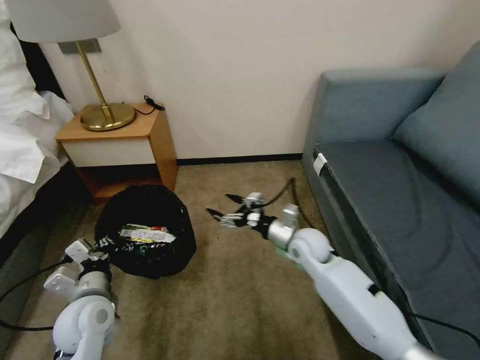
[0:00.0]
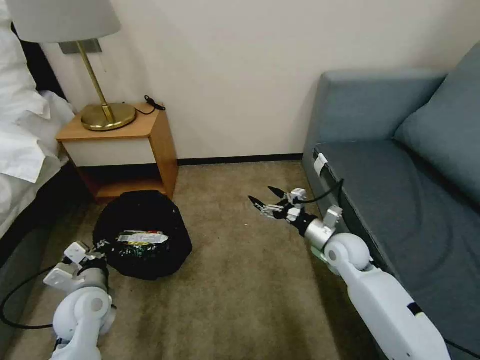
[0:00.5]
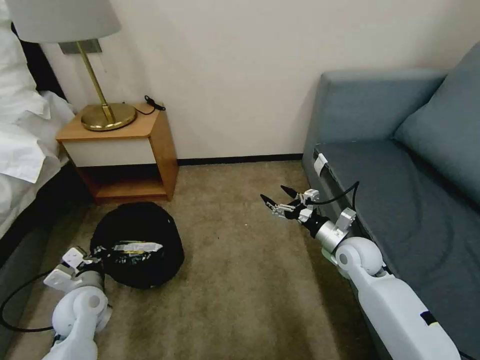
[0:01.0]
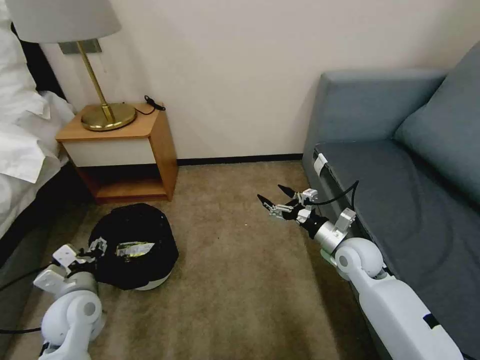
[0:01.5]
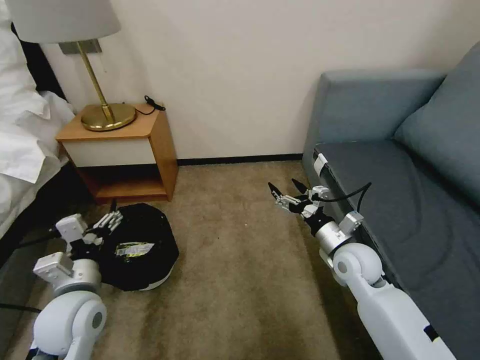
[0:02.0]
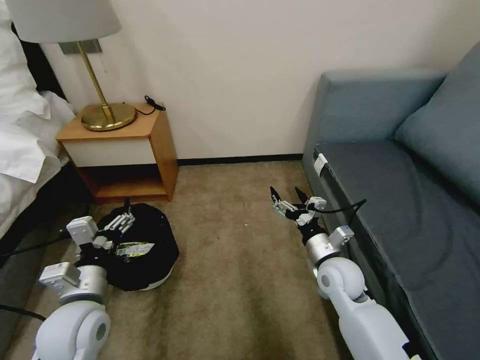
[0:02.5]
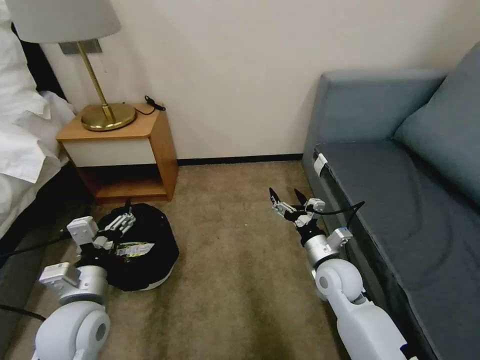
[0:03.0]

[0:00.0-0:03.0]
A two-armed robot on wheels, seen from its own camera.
Task of the whole recording: Pick up the trash bin, then pick up the garbage on the floor and place it into the trash bin.
0:00.0 to 0:01.5: The left gripper opens. The right gripper heads to the right, covering some 10 cm.
0:01.5 to 0:03.0: The left gripper moves upward and to the right, about 10 cm, while the right gripper travels to the left by approximately 5 cm.

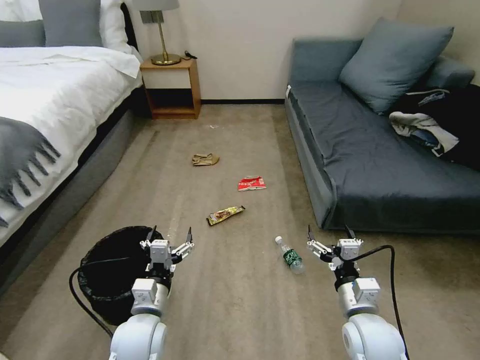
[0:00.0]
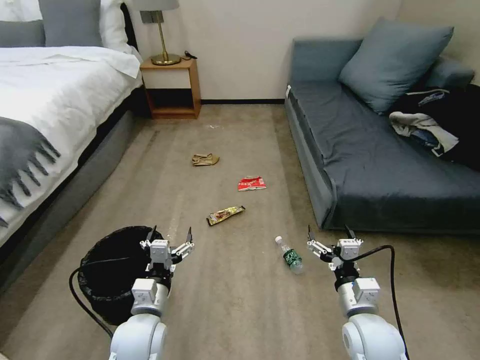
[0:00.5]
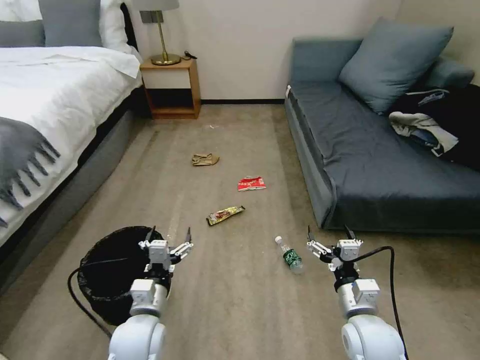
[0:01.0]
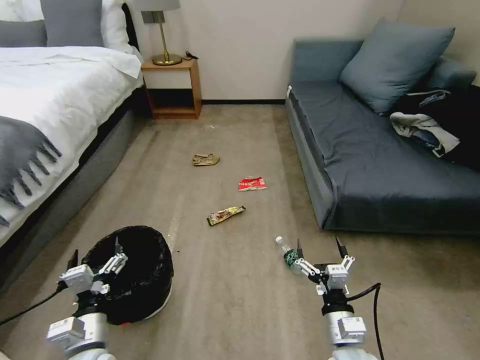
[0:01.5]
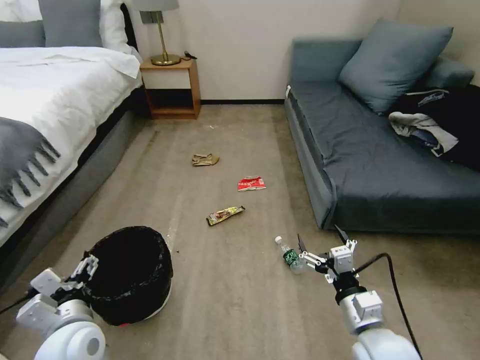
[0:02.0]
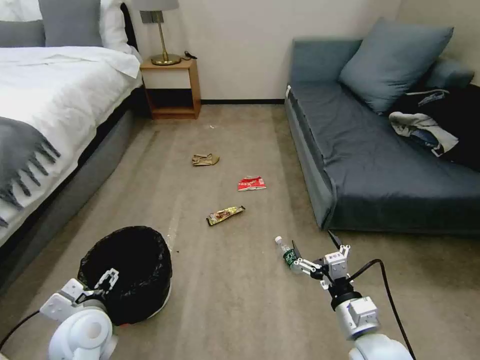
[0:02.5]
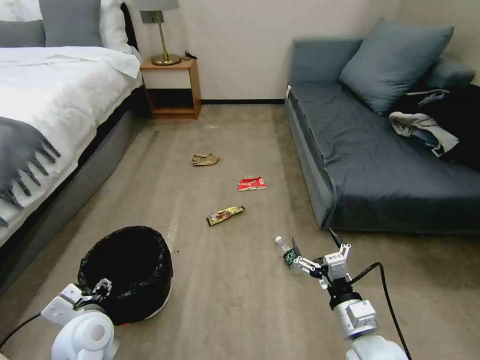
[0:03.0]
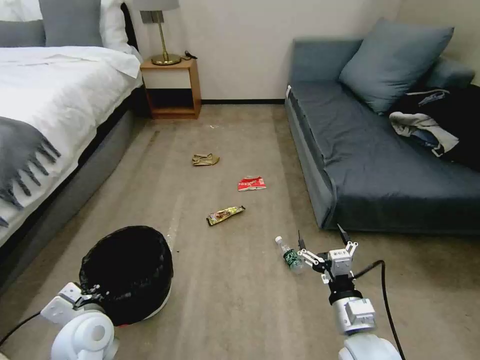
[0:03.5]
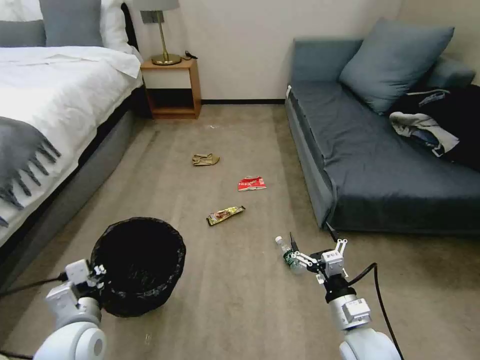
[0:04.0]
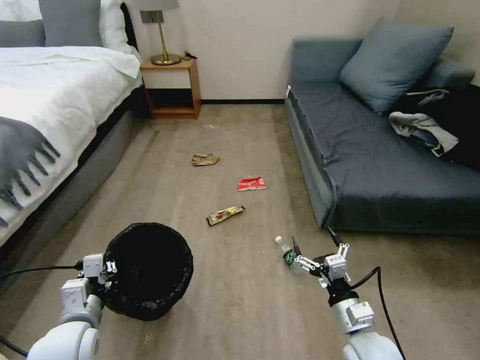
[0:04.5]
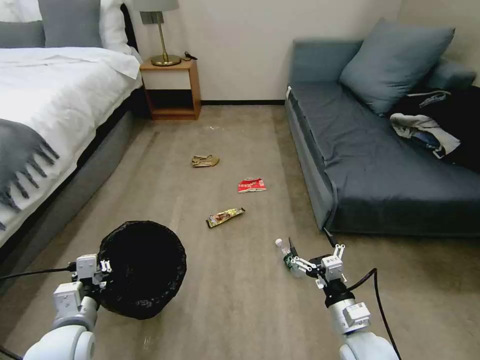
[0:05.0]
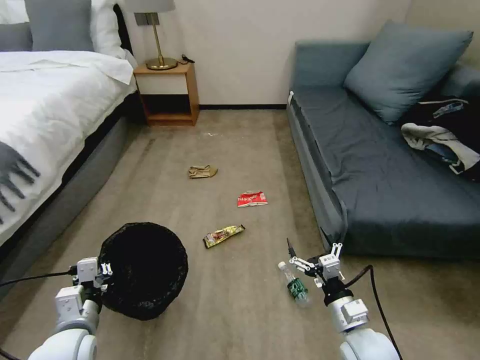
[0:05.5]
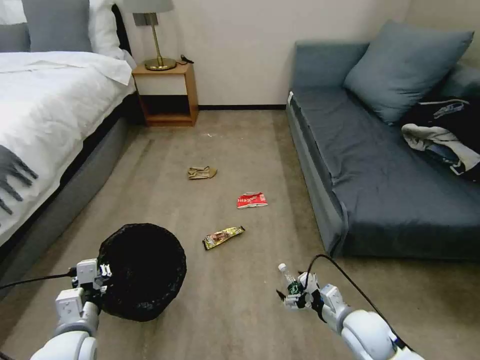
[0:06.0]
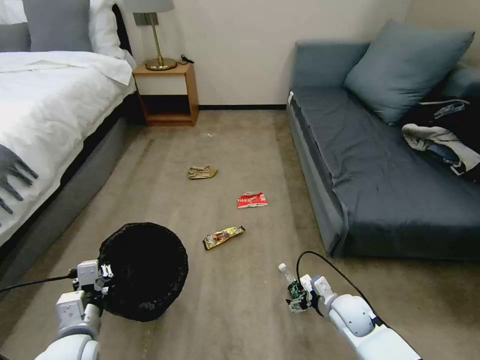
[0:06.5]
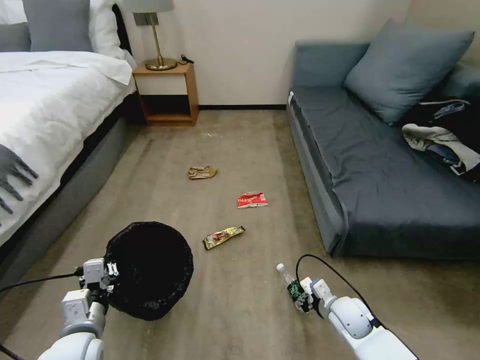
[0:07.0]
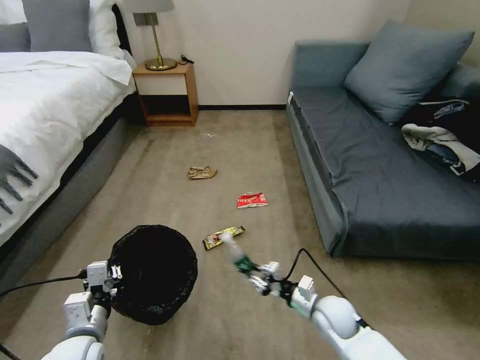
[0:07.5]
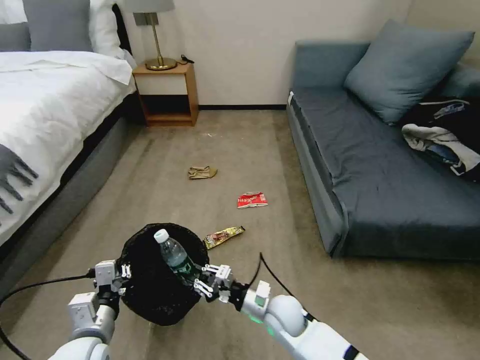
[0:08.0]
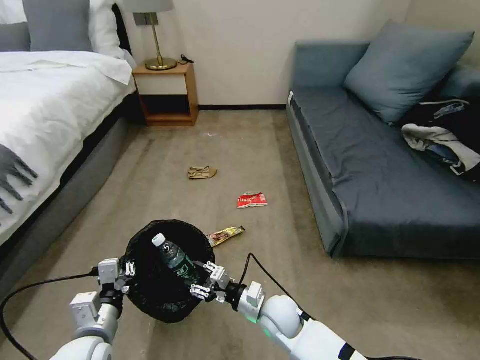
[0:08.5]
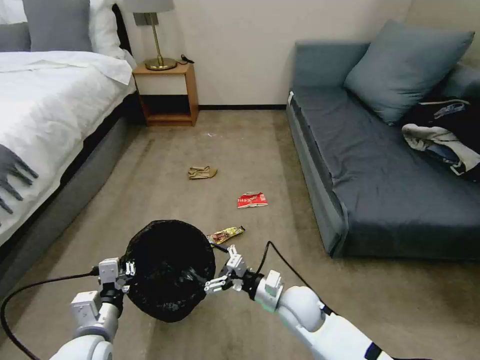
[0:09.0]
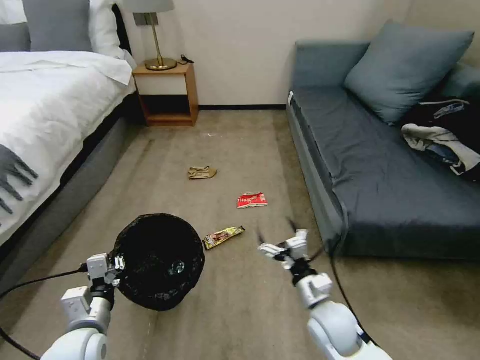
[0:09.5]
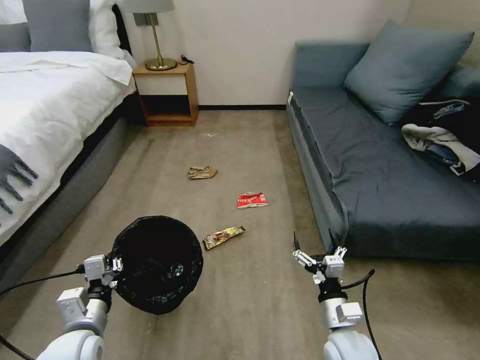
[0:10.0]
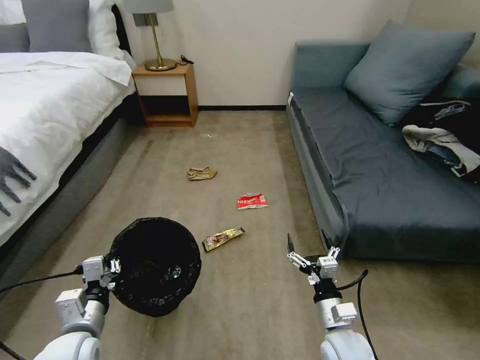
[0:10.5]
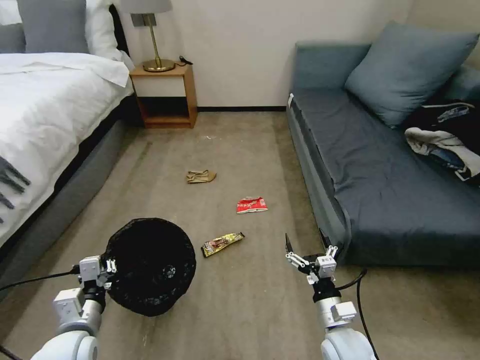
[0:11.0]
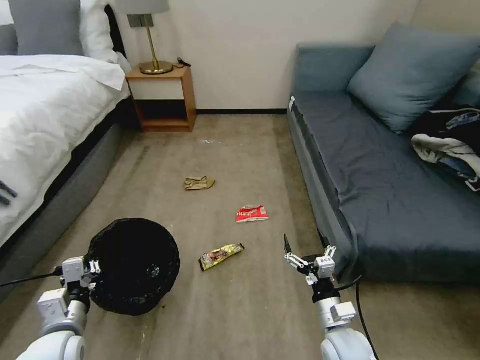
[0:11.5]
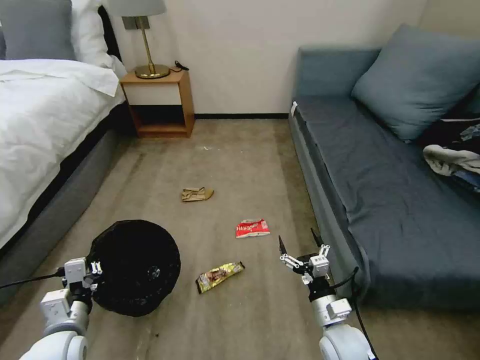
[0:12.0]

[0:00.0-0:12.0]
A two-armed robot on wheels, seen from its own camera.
Task of the whole recording: Pick up the trash bin, then pick up the garbage on the floor and place it into the trash bin.
0:02.0 to 0:04.0: The left gripper closes its fingers.
0:04.0 to 0:06.0: The right gripper heads downward, covering some 5 cm.
0:06.0 to 0:08.0: The right gripper is displaced to the left by roughly 20 cm, and closes.
0:08.0 to 0:10.0: The right gripper goes approximately 15 cm to the right and backward, and opens its fingers.

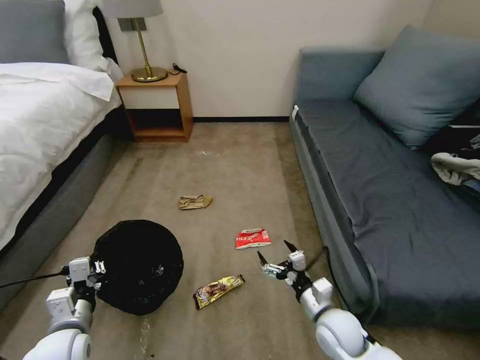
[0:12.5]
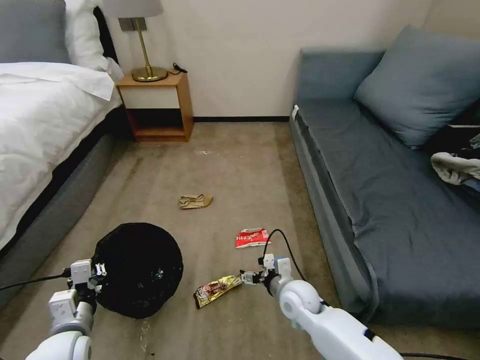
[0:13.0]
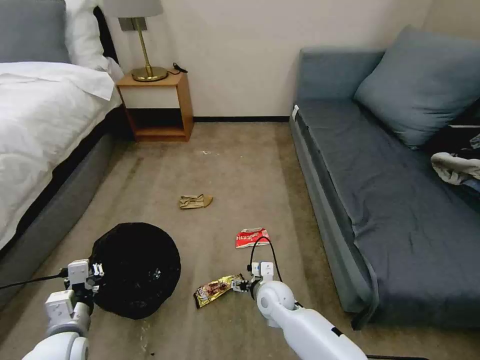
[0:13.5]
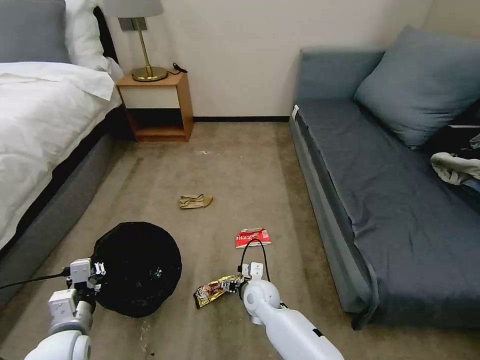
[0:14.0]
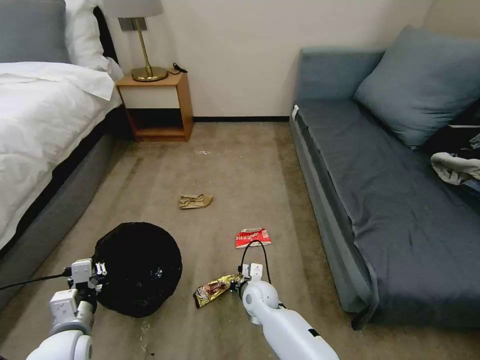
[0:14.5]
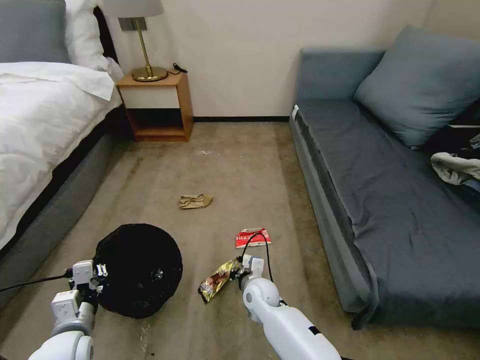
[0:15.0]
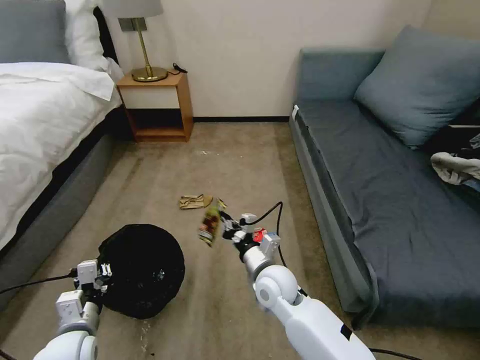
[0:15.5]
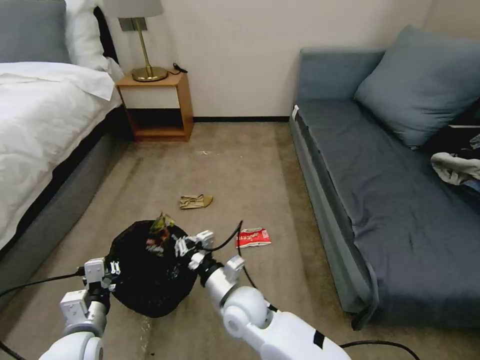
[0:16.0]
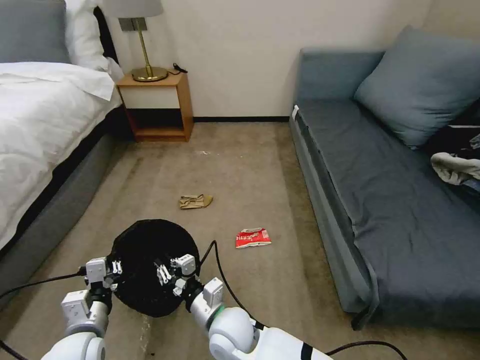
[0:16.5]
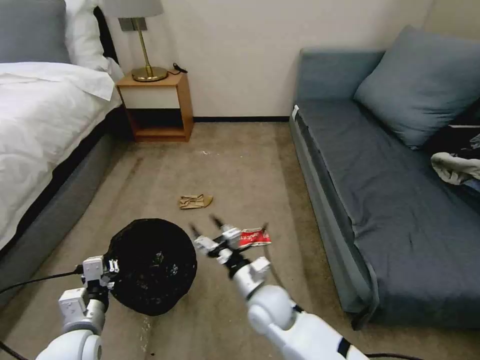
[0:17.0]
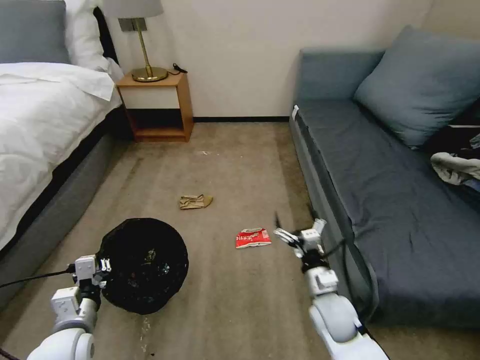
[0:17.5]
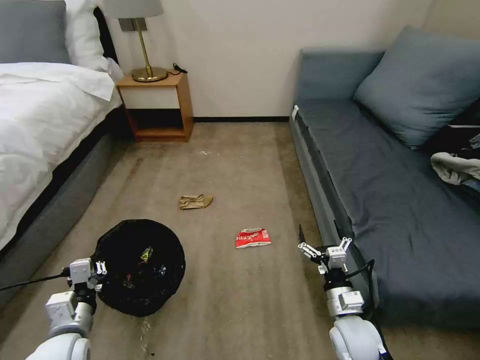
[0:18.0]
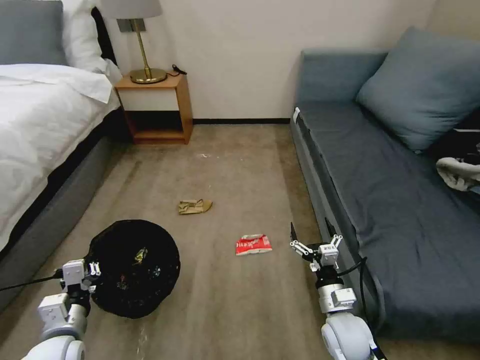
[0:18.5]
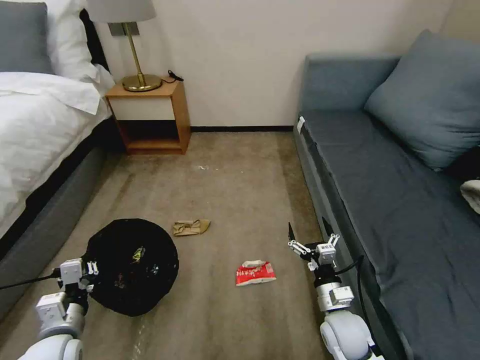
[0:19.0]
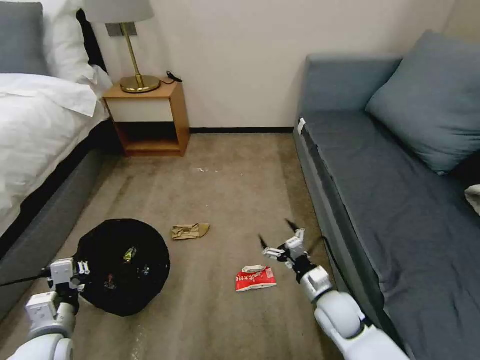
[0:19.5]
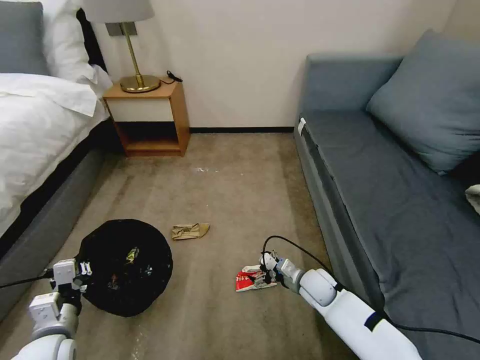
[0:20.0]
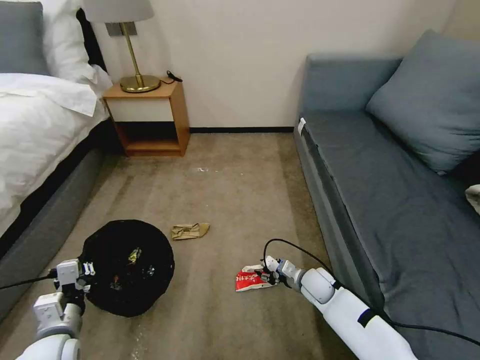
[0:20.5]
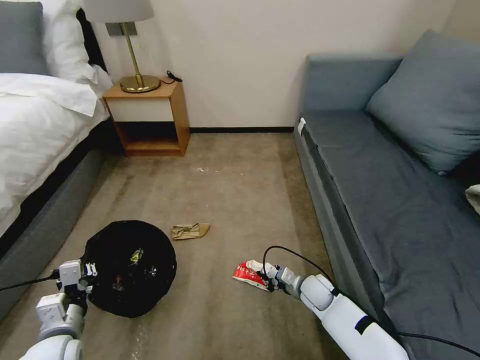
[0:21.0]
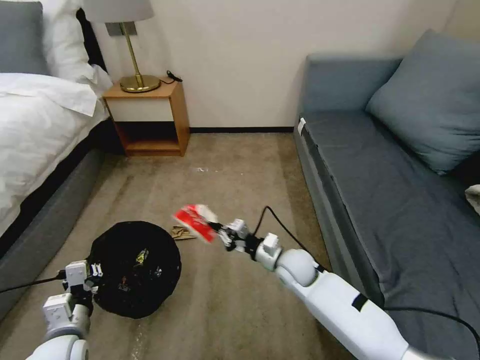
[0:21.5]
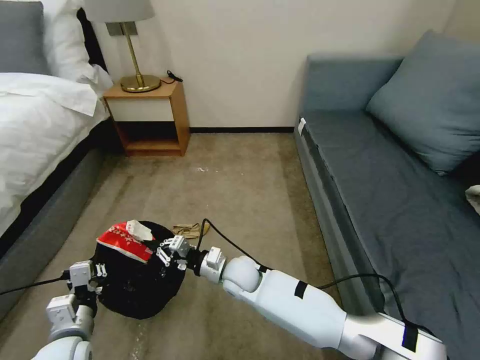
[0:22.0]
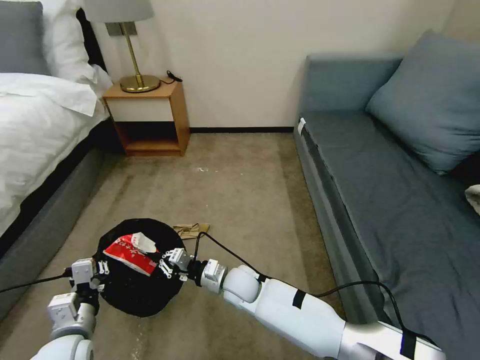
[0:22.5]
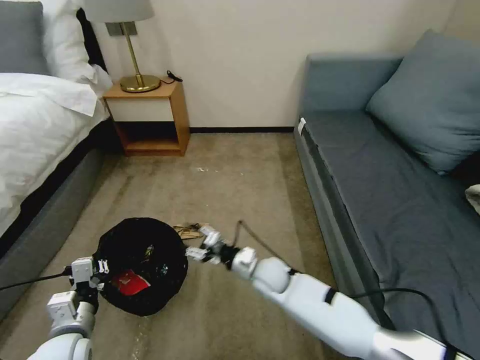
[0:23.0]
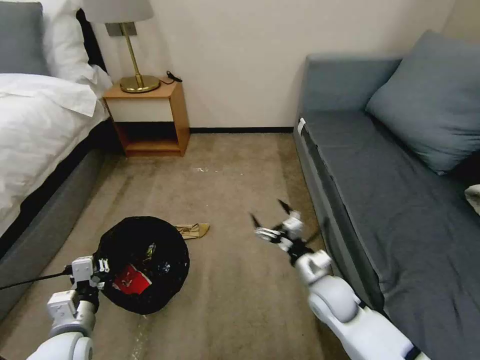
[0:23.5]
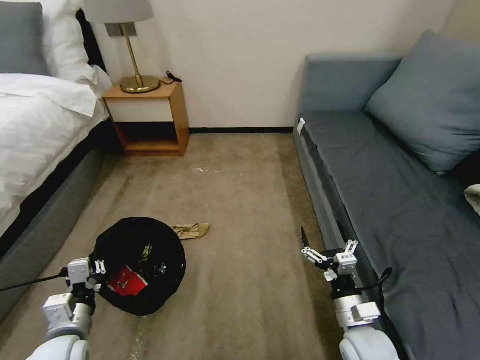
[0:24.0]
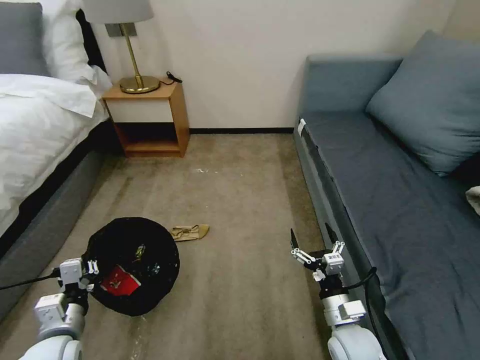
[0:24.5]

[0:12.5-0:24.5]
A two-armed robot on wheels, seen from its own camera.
Task of the whole recording: Pick up the trash bin, then pick up the garbage on the floor and place it into the trash bin.
0:12.5 to 0:14.5: The right gripper is displaced to the left and forward by about 20 cm, and closes up.
0:14.5 to 0:16.5: The right gripper is displaced backward, upward and to the left by some 15 cm.
0:16.5 to 0:18.5: The right gripper travels to the right by approximately 25 cm, and opens up.
0:18.5 to 0:20.5: The right gripper travels forward and downward by about 15 cm, and closes.
0:20.5 to 0:22.5: The right gripper moves to the left, approximately 25 cm, and closes.
0:22.5 to 0:24.5: The right gripper travels to the right and backward by about 30 cm, and opens its fingers.
